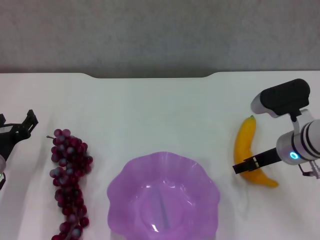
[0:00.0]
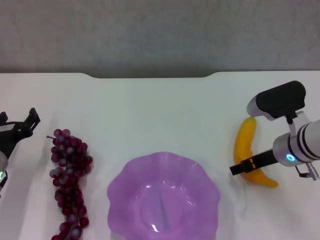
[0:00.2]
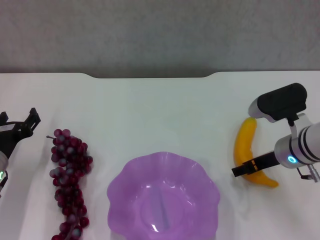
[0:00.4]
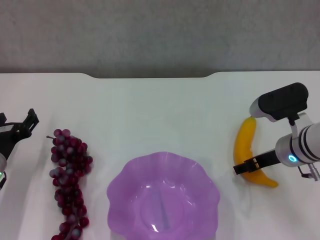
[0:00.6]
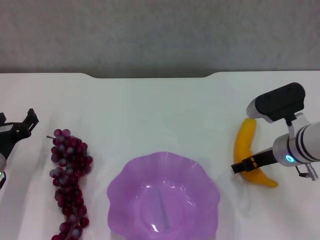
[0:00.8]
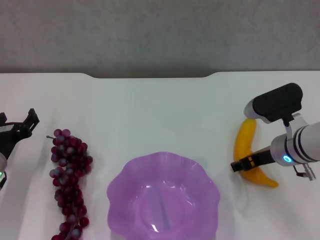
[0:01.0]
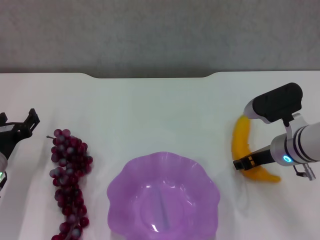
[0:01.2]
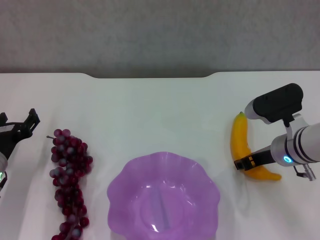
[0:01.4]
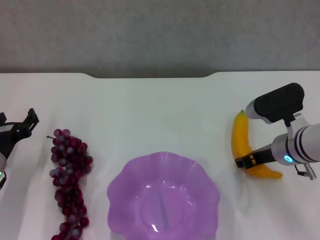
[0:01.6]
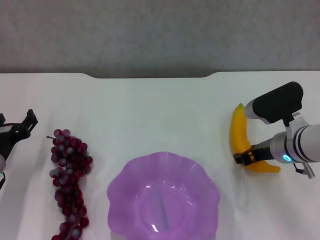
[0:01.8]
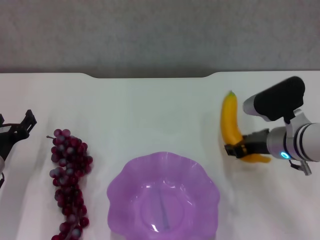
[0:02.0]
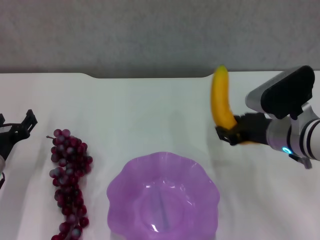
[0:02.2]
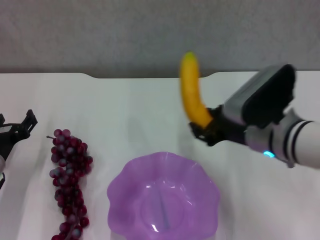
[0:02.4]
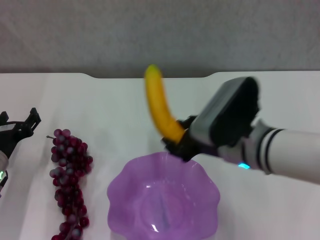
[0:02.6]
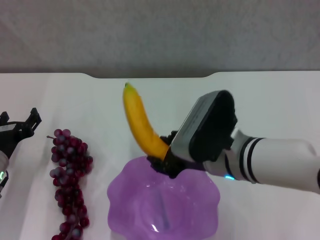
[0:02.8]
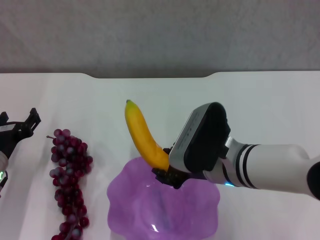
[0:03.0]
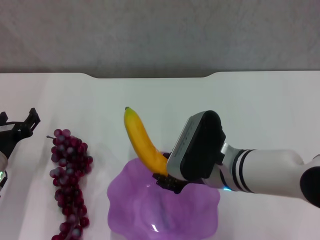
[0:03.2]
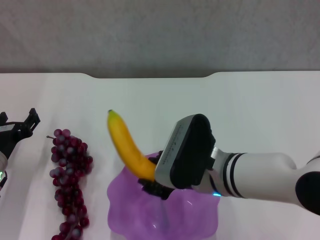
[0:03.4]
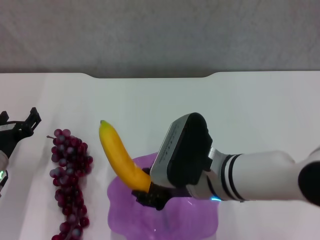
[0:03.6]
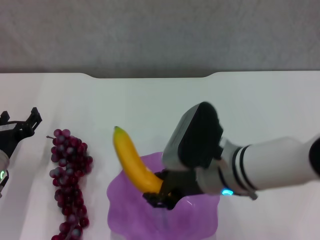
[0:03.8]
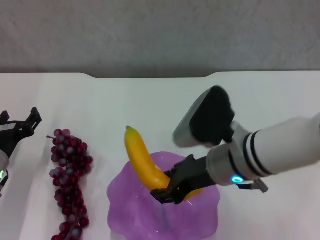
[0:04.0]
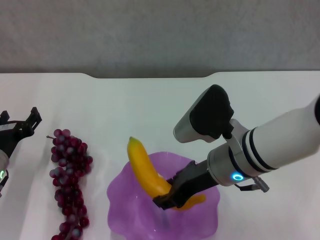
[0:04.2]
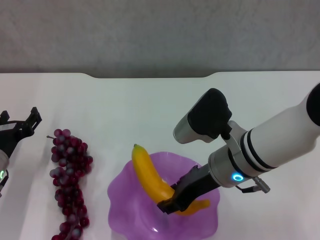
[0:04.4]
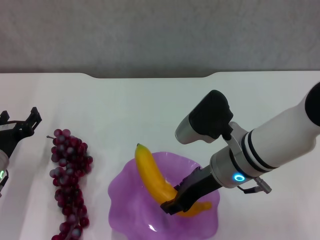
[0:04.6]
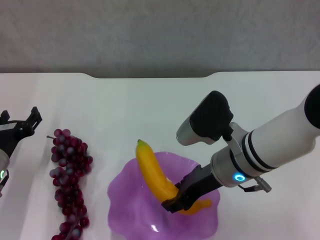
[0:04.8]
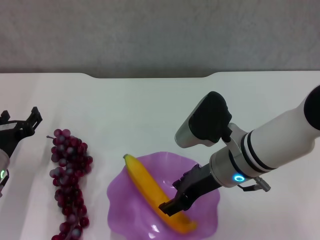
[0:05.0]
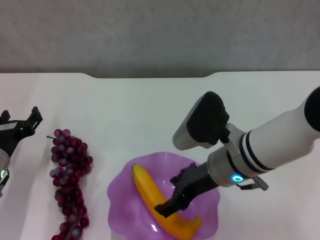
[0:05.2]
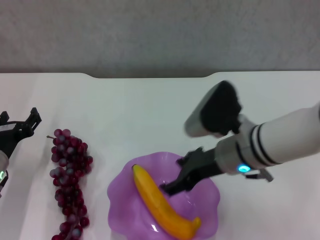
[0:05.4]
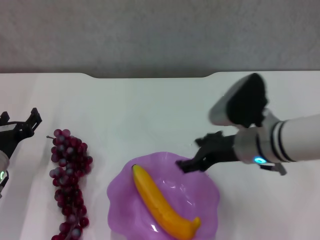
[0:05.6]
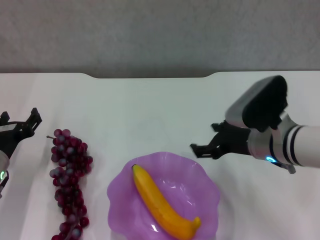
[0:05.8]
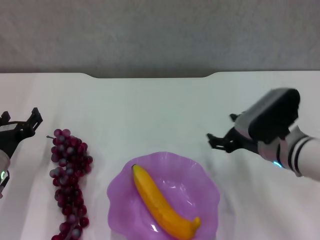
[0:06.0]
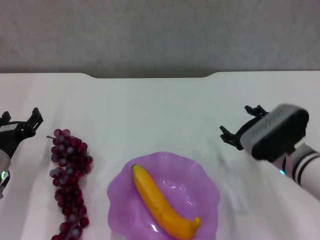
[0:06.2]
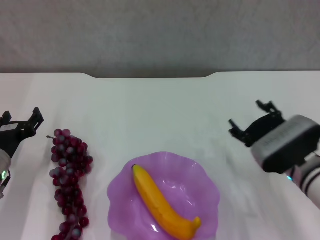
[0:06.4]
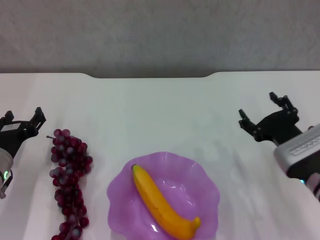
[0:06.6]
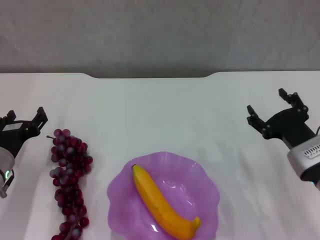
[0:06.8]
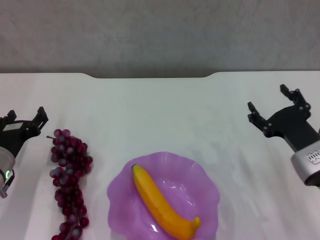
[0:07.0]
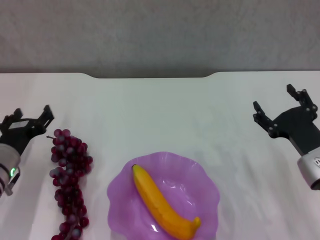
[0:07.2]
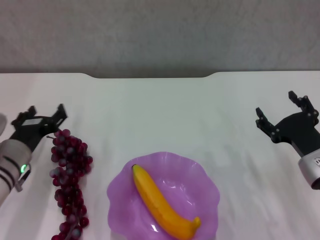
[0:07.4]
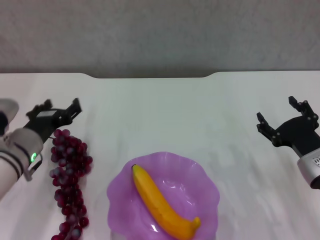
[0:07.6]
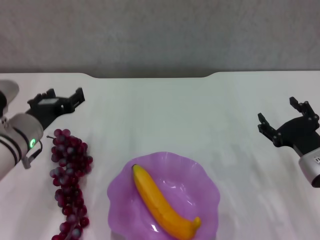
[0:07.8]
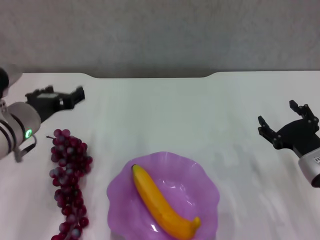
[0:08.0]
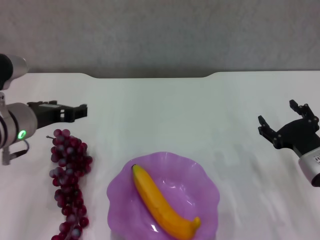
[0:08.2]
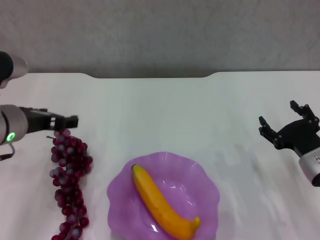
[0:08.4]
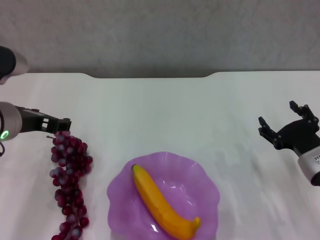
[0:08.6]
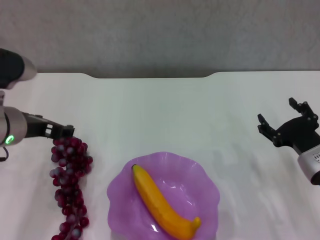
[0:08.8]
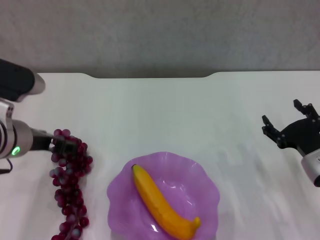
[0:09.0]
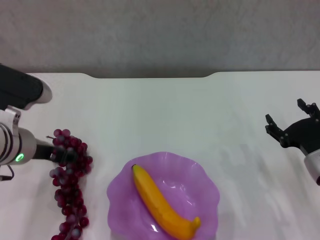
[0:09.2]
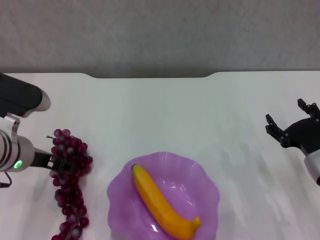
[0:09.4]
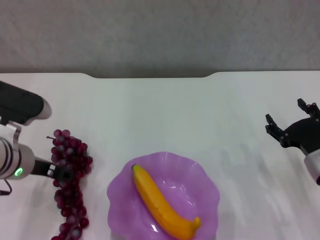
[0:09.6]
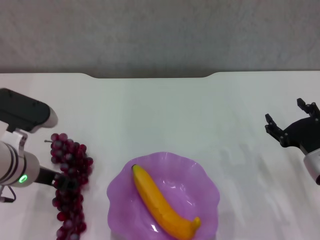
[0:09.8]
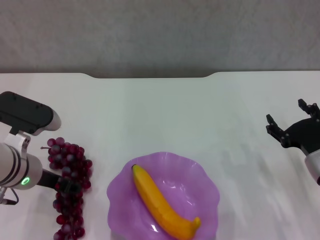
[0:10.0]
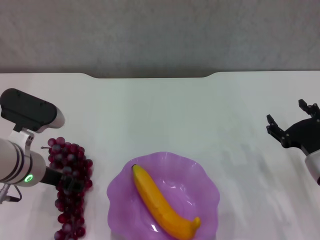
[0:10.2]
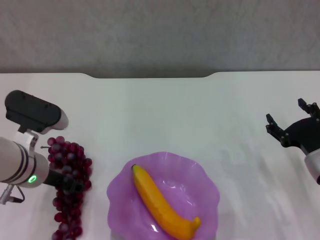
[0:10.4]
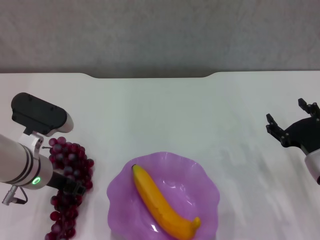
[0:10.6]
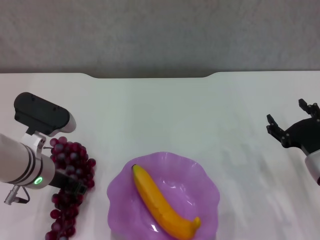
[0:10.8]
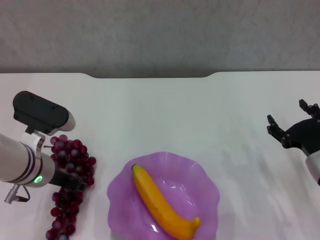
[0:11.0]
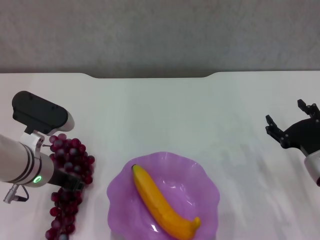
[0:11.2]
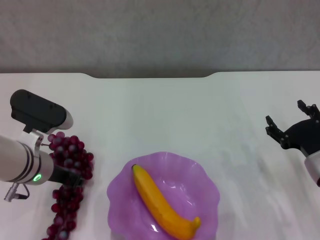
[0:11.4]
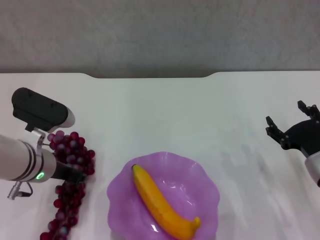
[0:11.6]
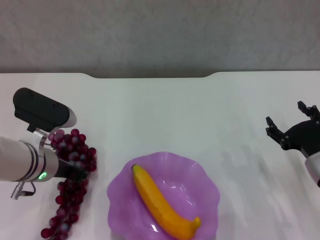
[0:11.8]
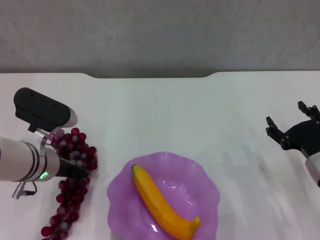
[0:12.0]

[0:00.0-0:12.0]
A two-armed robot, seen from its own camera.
Step, 1.6 to 5.2 s: Place the banana in the purple plate with right gripper.
Step, 5.4 to 10.2 s: Grasp the grape with left gripper.
0.0 to 1.6 s: The right gripper closes.
1.6 to 3.0 s: The right gripper travels to the left and backward by approximately 15 cm.
4.4 to 6.0 s: The right gripper heads to the right, covering approximately 10 cm, and opens up.
6.0 to 7.6 s: The right gripper goes approximately 5 cm to the right. Meanwhile the left gripper changes place by approximately 5 cm.
7.6 to 9.0 s: The left gripper travels upward by about 10 cm.
9.0 to 10.4 s: The left gripper goes roughly 5 cm downward.
10.4 to 12.0 s: The left gripper closes its fingers.

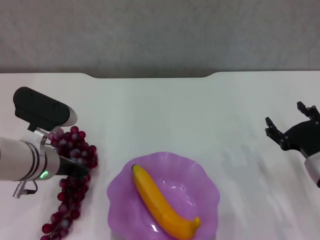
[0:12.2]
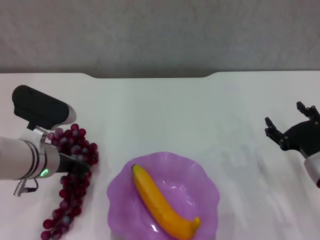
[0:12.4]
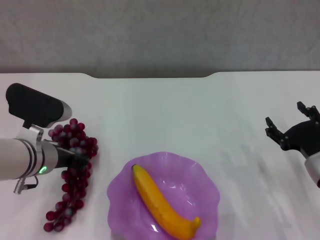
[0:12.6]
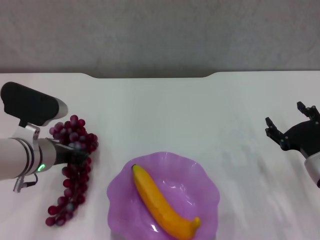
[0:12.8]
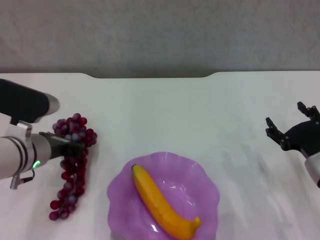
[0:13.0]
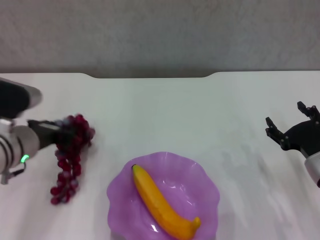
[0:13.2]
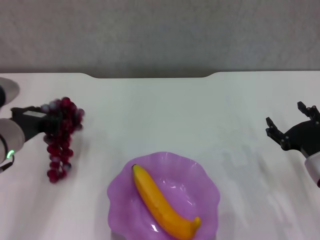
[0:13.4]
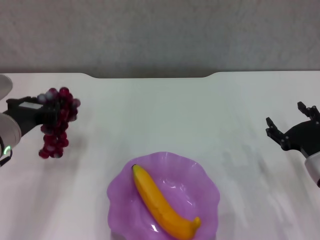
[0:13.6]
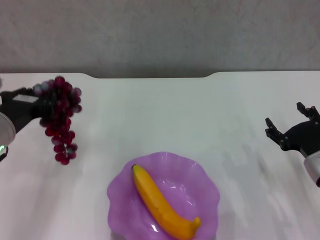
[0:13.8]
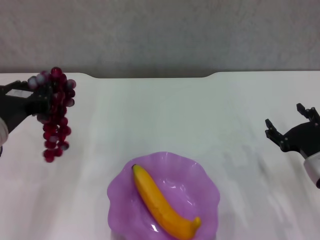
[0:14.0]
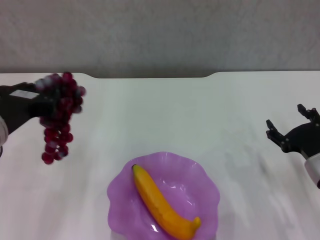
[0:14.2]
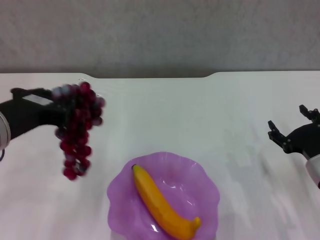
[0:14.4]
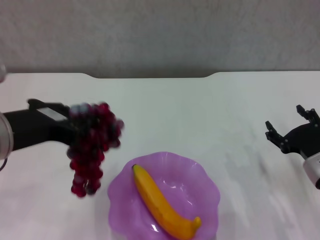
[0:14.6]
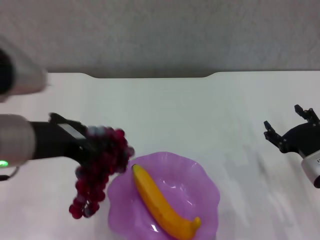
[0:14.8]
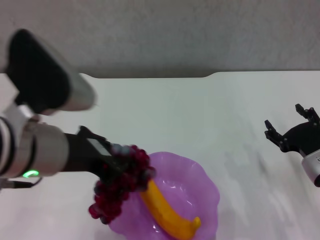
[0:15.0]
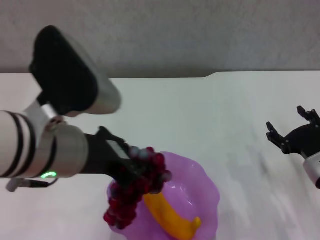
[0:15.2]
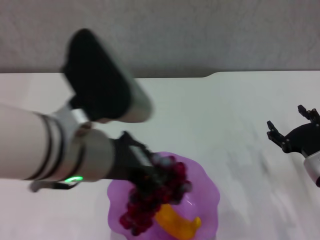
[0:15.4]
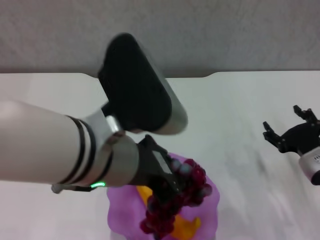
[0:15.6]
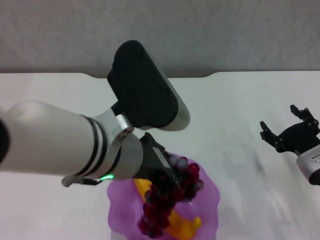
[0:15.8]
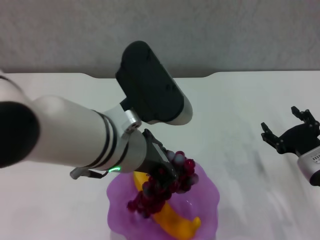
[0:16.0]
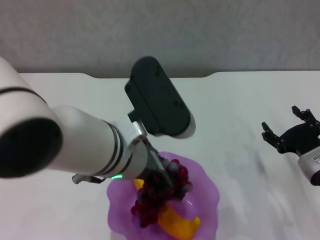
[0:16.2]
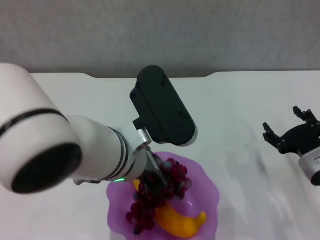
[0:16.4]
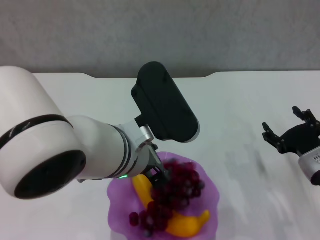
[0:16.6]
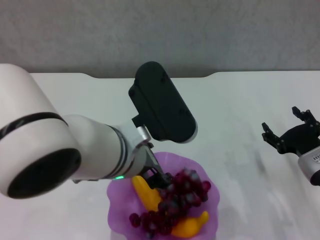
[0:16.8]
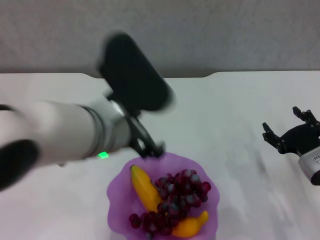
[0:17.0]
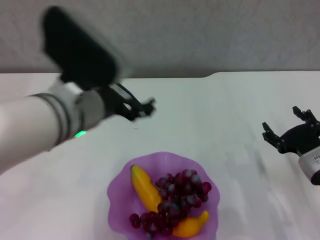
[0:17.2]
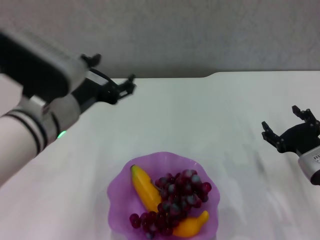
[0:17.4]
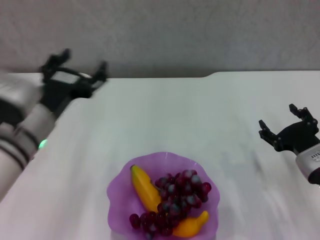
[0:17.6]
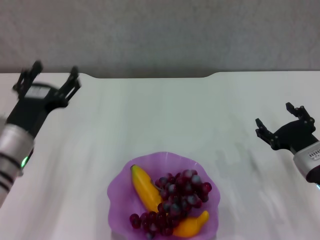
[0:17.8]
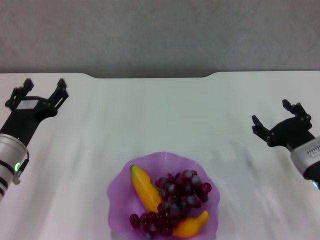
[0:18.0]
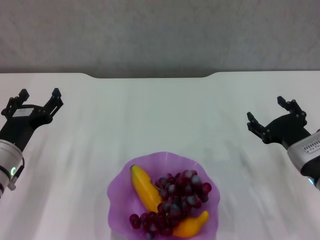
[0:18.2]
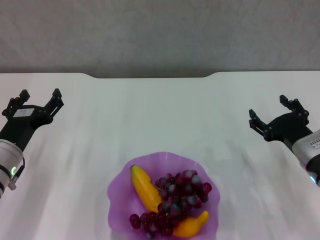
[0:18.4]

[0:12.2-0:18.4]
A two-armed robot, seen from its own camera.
Step, 12.2 to 17.0 s: Place the grape in the purple plate with left gripper.
12.2 to 13.8 s: The left gripper goes roughly 5 cm upward.
13.8 to 15.4 s: The left gripper shifts roughly 15 cm to the right, upward and backward.
15.4 to 16.8 s: The left gripper changes place by roughly 5 cm, and opens its fingers.
16.8 to 18.4 s: The left gripper travels to the left and downward by roughly 25 cm, and opens its fingers.

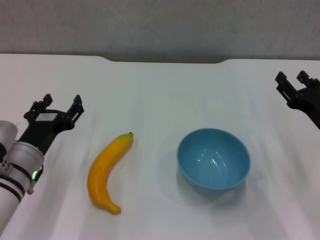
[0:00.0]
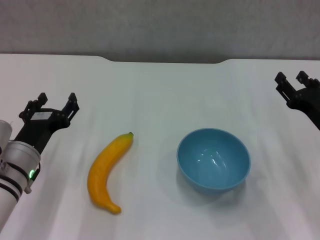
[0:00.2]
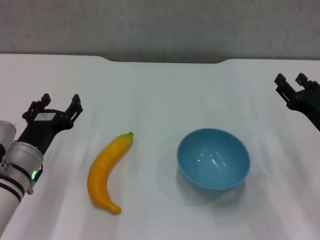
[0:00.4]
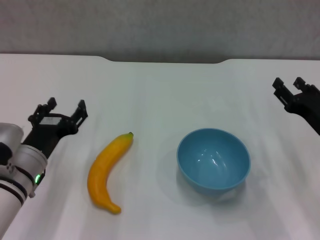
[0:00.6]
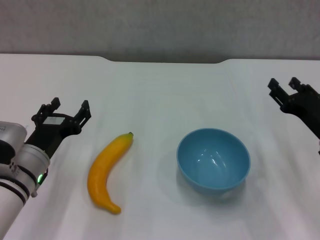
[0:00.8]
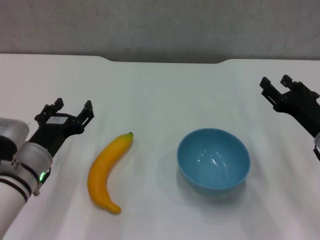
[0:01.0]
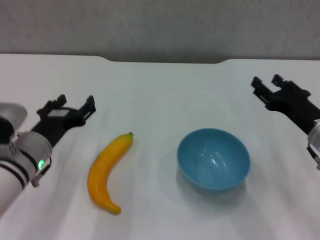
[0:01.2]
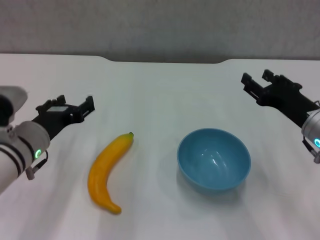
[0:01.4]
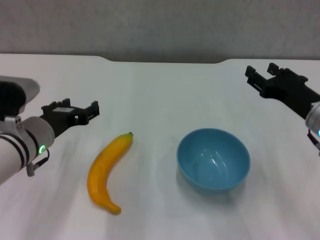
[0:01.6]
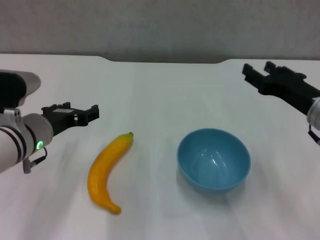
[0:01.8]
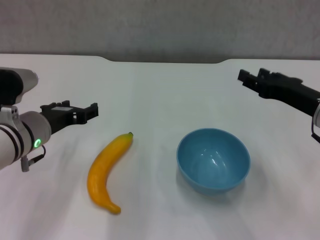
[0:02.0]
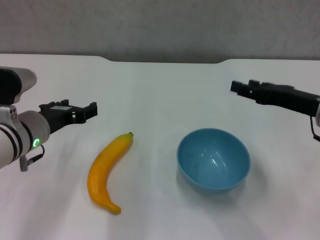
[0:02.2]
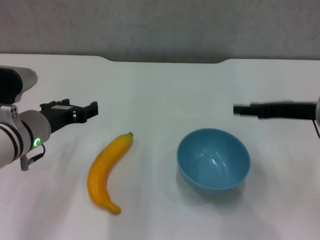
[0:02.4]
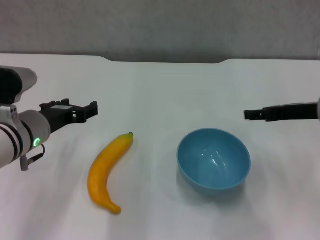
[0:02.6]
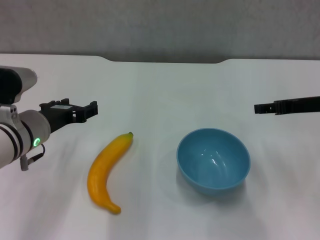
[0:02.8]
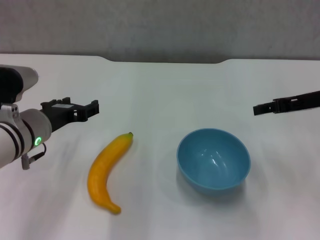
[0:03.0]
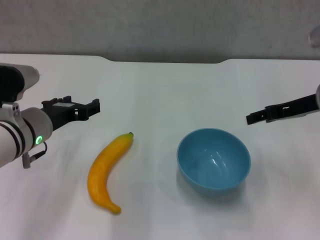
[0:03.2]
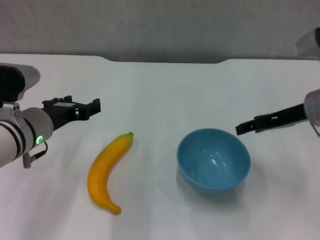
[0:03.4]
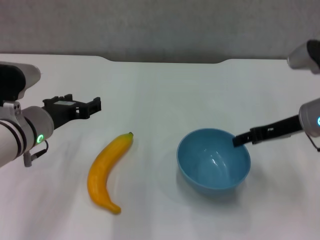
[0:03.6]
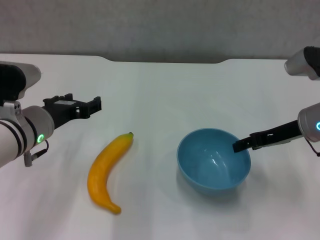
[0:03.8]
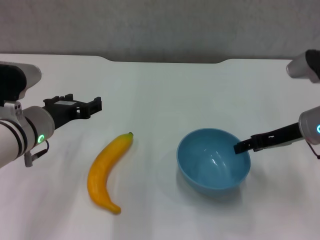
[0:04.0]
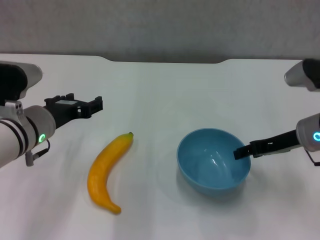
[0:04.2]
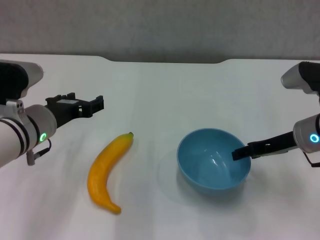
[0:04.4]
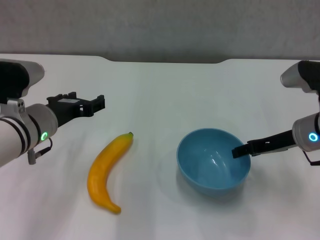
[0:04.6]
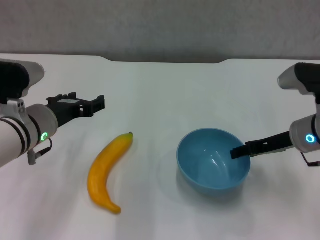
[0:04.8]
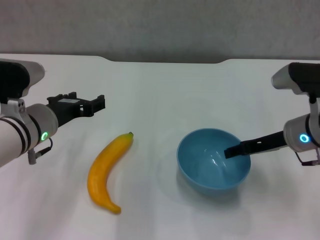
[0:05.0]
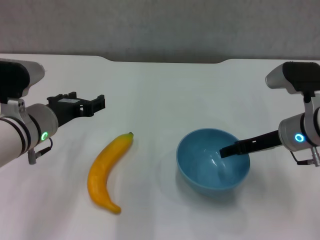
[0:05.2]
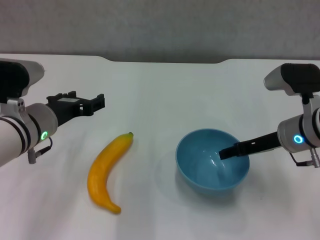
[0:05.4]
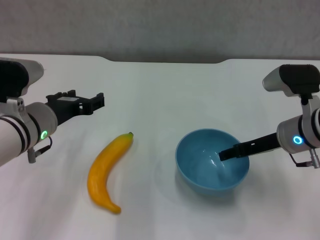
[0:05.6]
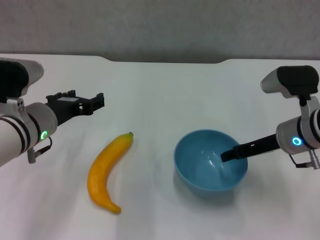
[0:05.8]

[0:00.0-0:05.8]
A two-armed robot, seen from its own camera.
0.0 to 1.4 s: The grippers move only a little.
1.4 to 2.8 s: The right gripper heads upward, covering some 5 cm.
2.8 to 4.4 s: The right gripper moves downward, roughly 5 cm.
4.4 to 5.8 s: There are only small adjustments of the grippers.
